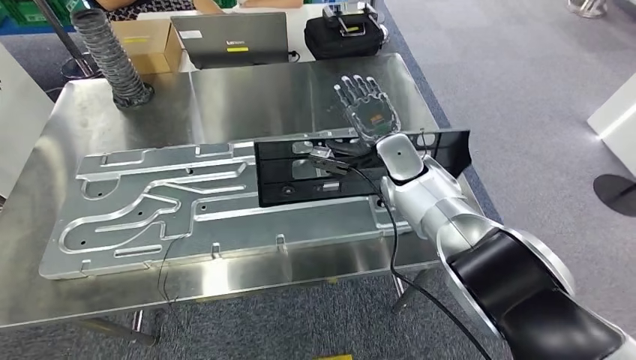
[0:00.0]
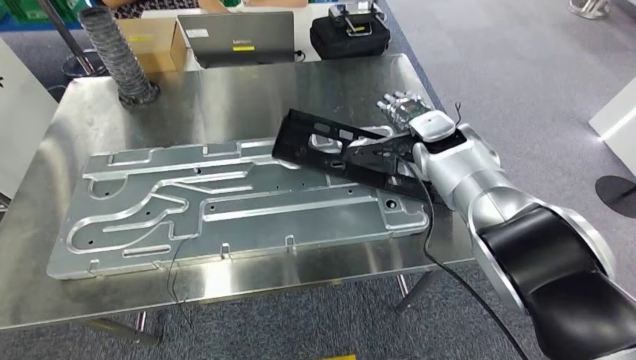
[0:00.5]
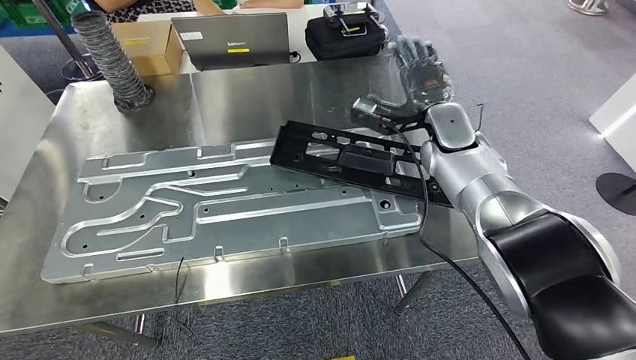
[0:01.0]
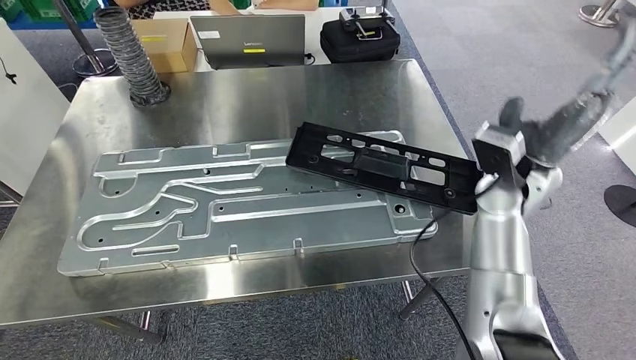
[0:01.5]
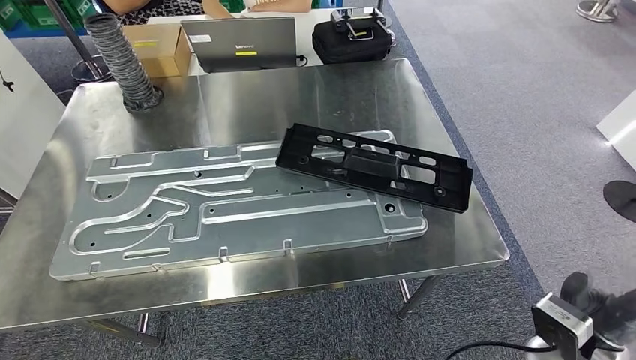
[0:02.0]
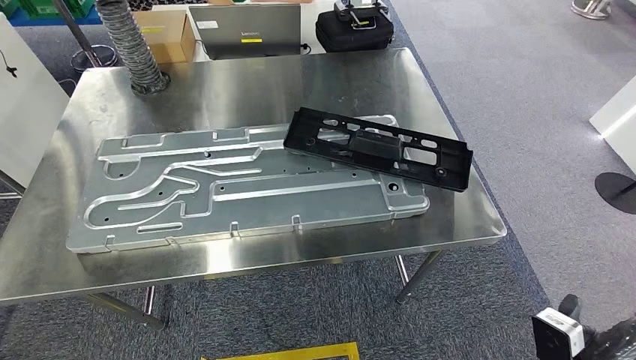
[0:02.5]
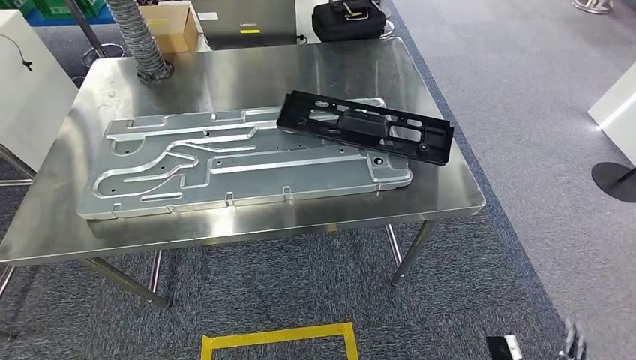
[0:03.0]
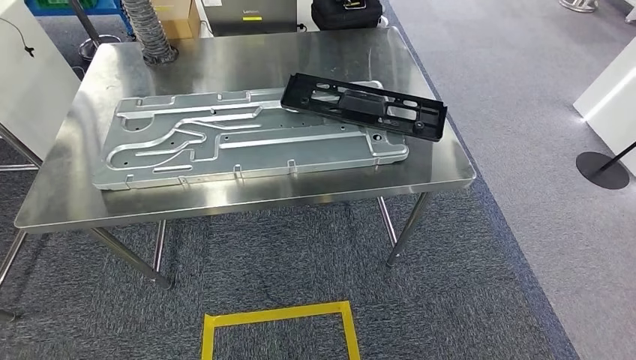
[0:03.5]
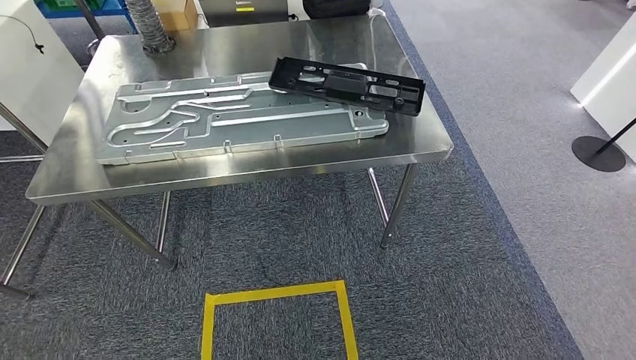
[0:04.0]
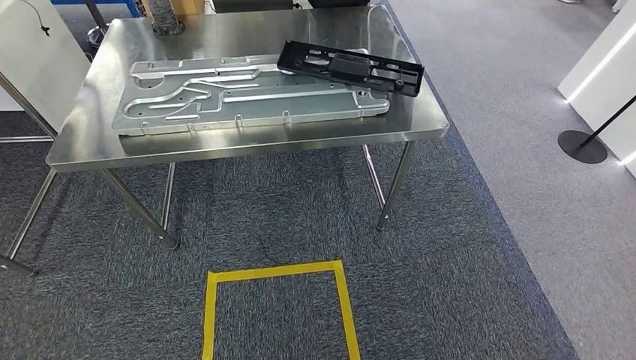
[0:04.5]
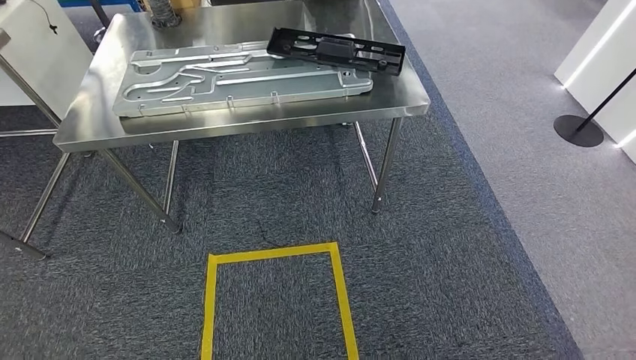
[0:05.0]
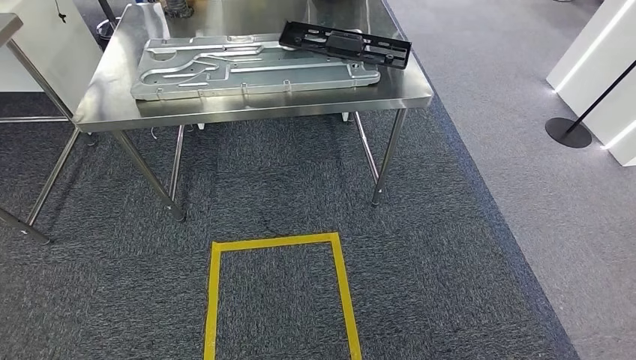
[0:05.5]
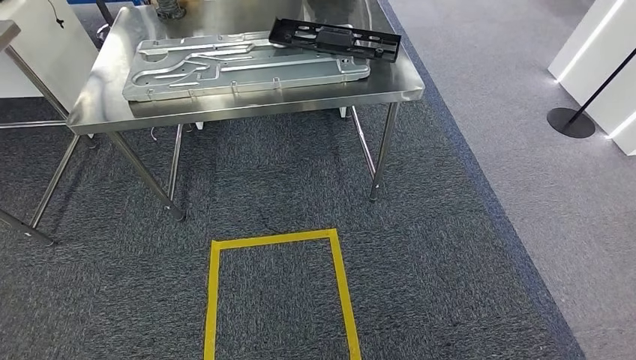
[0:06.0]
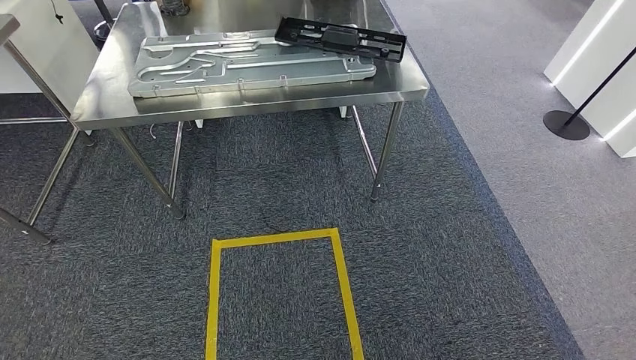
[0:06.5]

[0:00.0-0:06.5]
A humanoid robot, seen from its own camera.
Step, 0:00.0 to 0:03.0: Insert the large material into the corresponding slot on the workbench.
Step, 0:03.5 to 0:06.5: Move to the initial position of the shelf.
